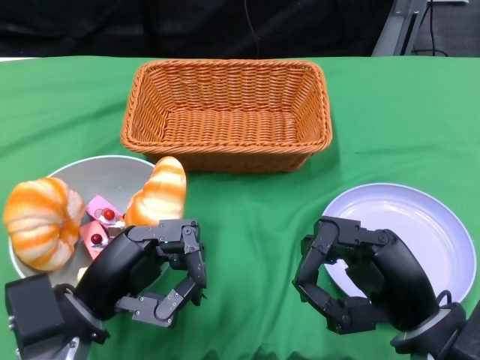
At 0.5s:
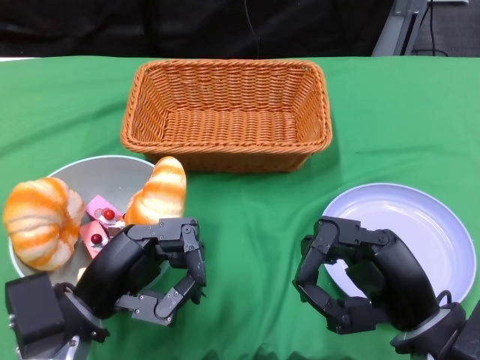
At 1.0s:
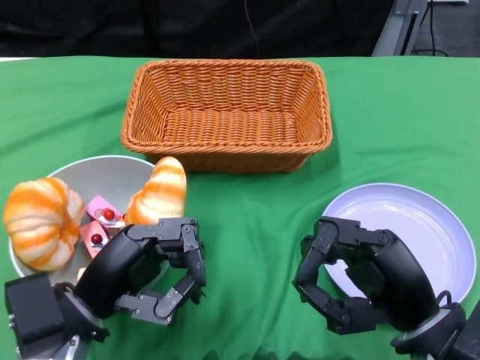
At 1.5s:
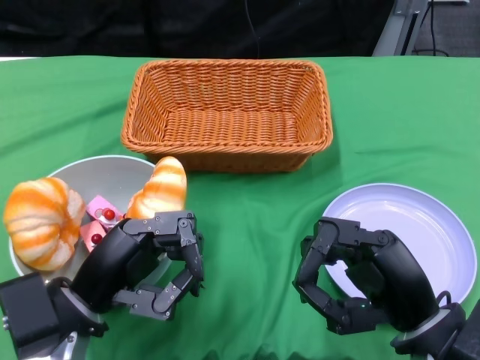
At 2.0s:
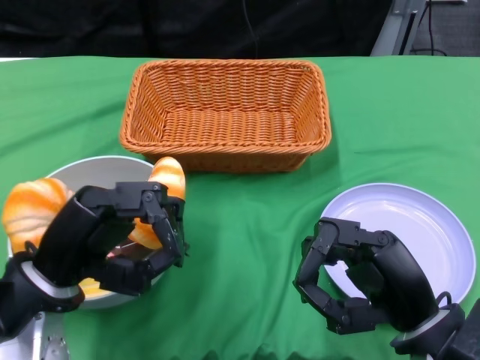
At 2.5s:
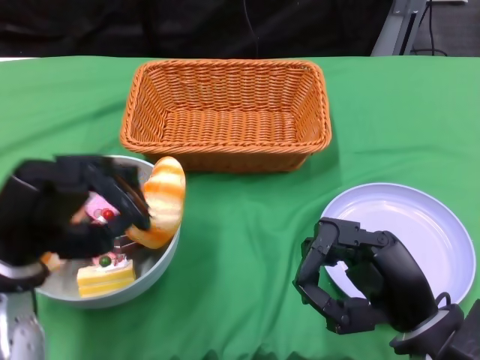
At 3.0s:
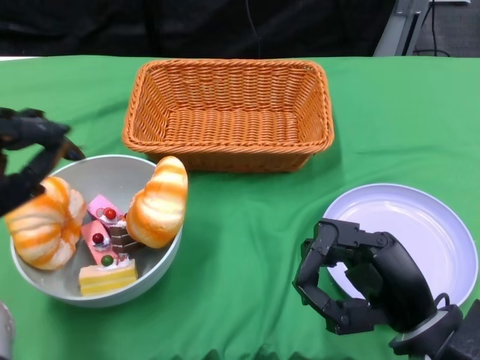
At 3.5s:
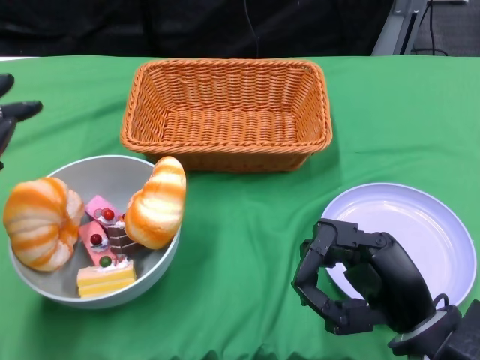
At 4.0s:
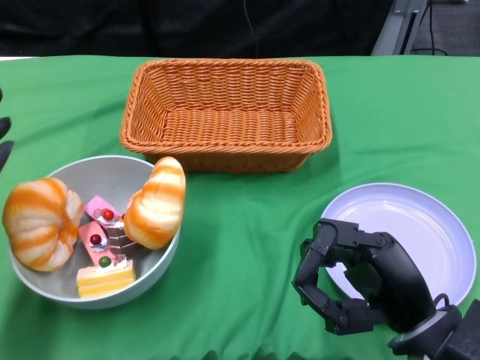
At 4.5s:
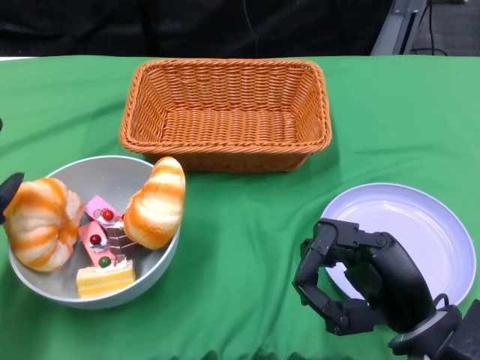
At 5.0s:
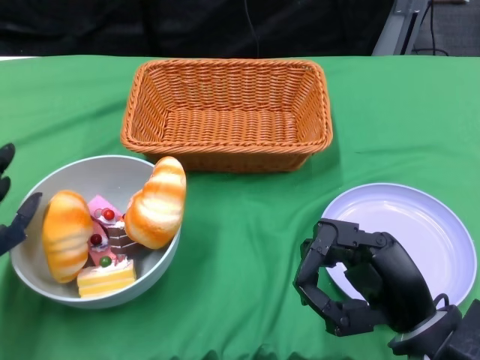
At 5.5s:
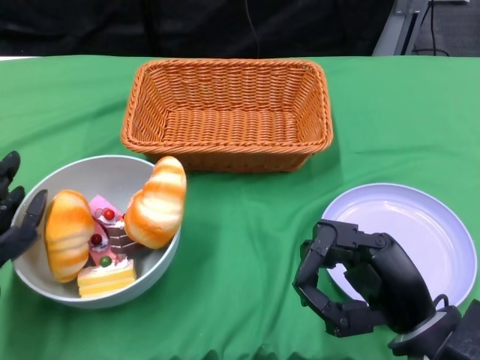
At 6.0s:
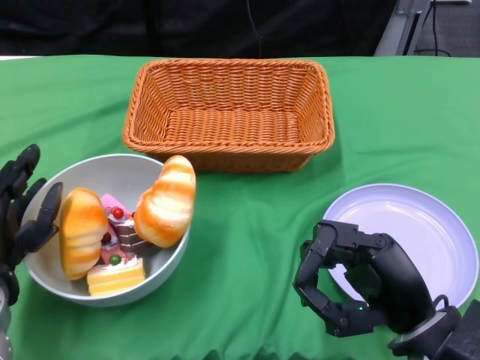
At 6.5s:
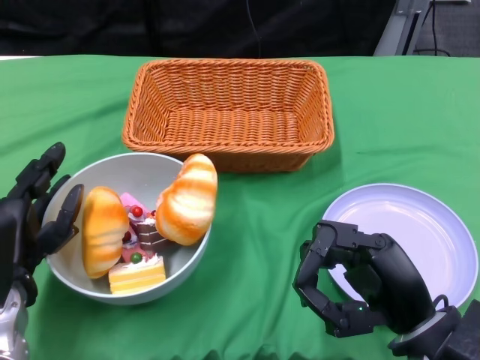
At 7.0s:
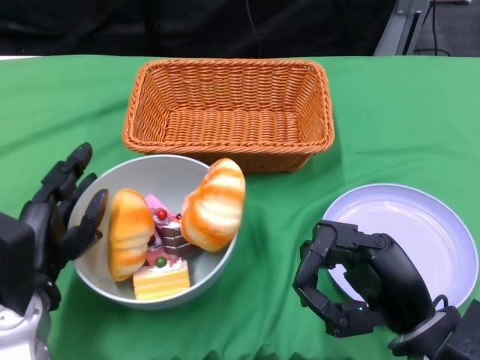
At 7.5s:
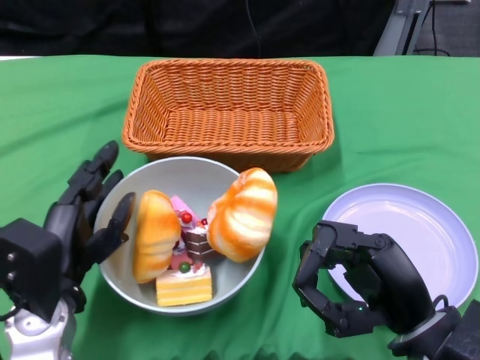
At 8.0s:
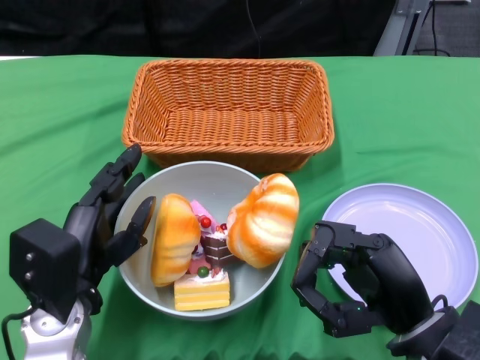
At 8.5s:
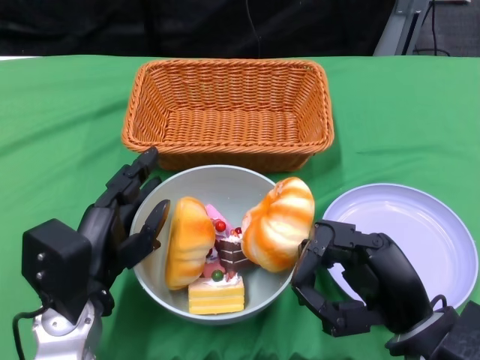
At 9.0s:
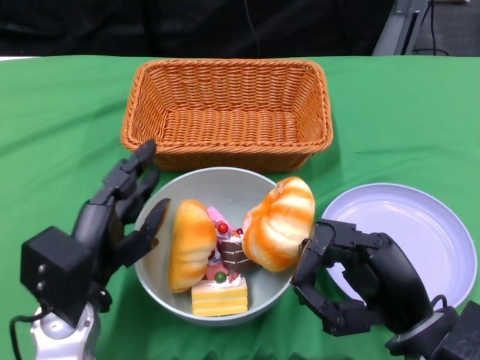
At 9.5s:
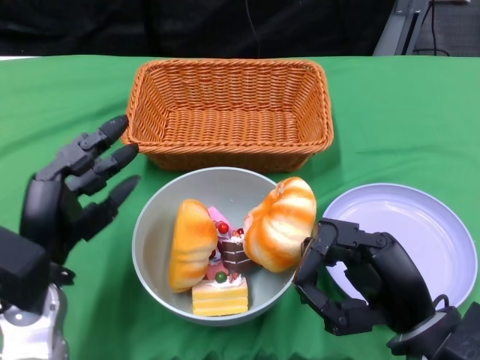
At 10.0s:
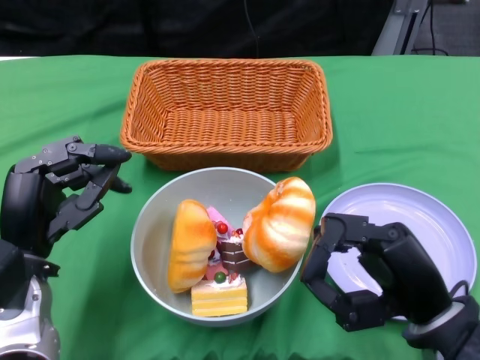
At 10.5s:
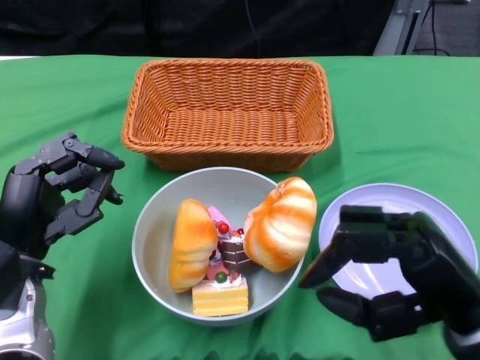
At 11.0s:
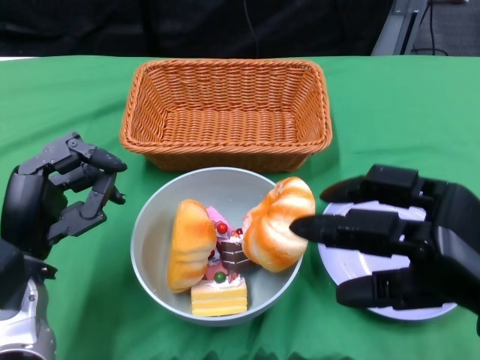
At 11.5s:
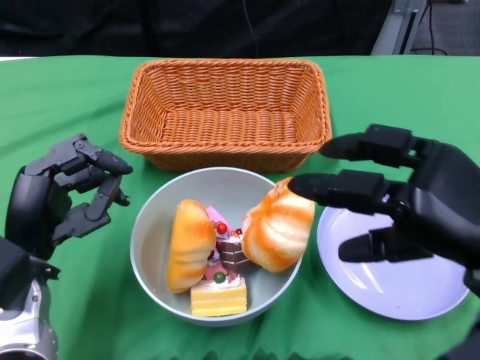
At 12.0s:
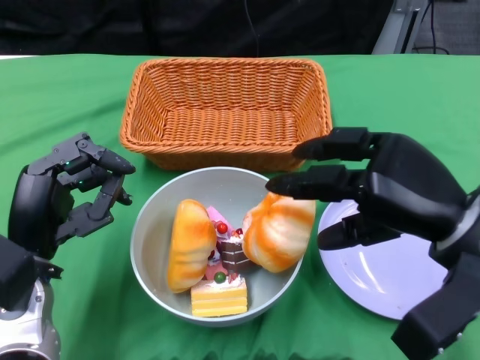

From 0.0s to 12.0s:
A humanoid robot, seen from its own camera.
Step, from 0.0s to 9.0s: Push the bowl to the center of the table using the left gripper.
From 2.0s to 4.0s: The left hand travels to the left by approximately 10 cm.
From 4.0s to 6.0s: The left hand changes place by approximately 5 cm.
From 6.0s to 8.0s: The left hand travels to the right by roughly 5 cm.
From 10.0s to 12.0s: The right hand shifts some 10 cm upward and forward.

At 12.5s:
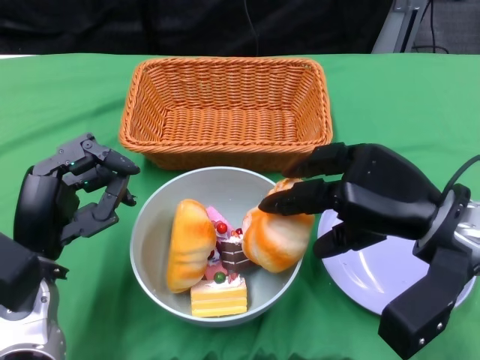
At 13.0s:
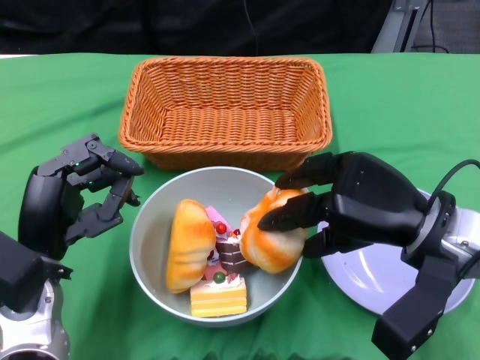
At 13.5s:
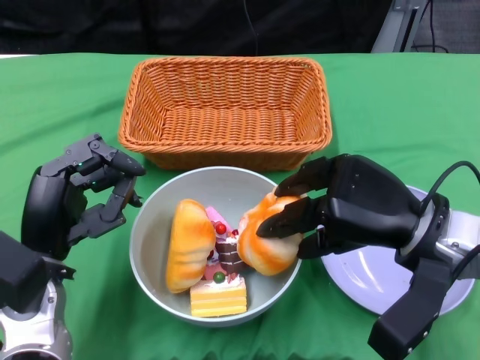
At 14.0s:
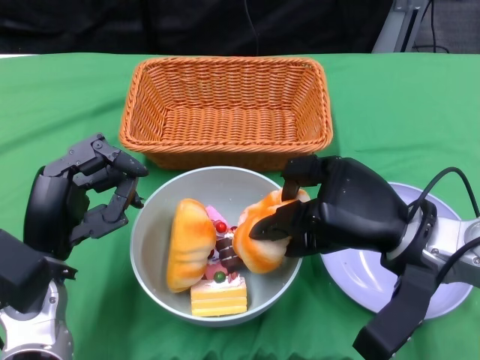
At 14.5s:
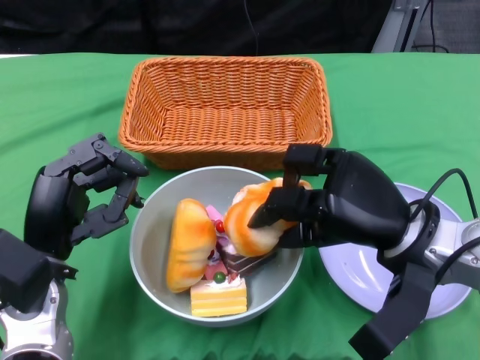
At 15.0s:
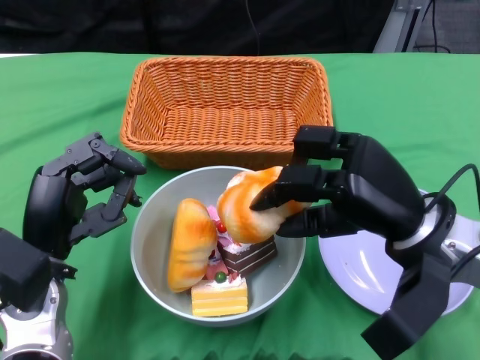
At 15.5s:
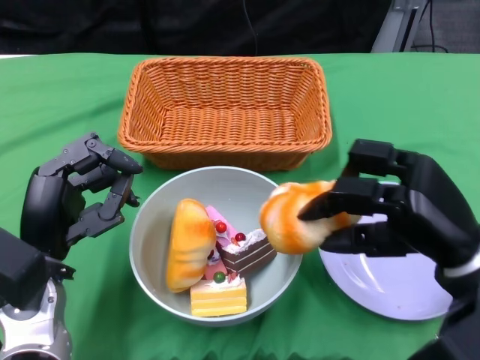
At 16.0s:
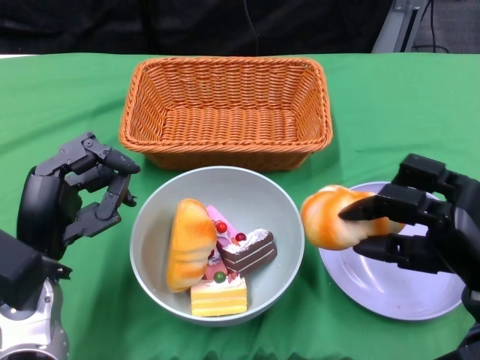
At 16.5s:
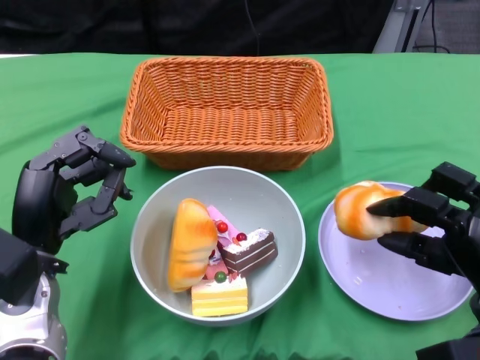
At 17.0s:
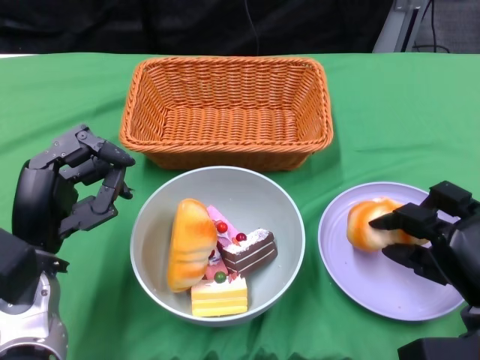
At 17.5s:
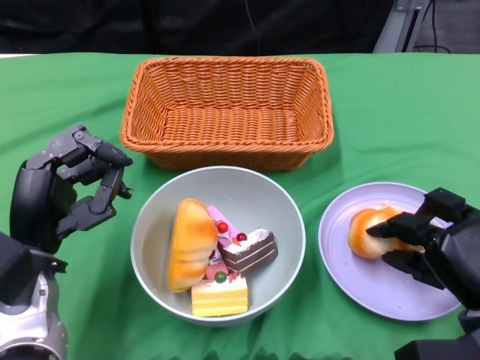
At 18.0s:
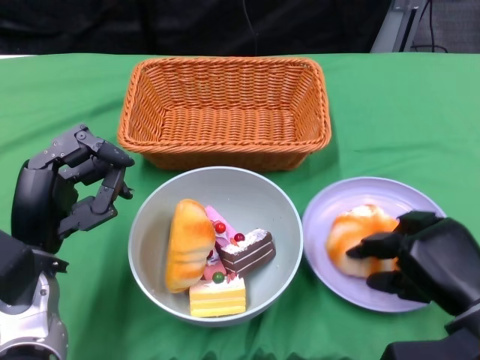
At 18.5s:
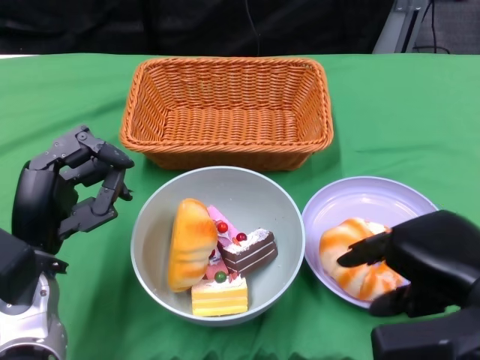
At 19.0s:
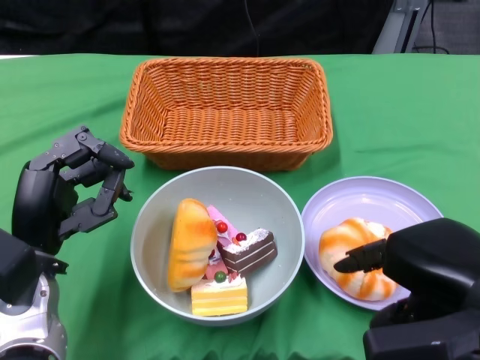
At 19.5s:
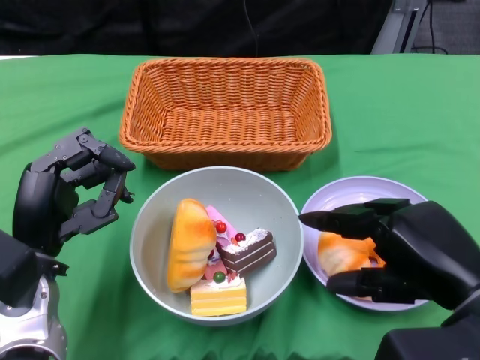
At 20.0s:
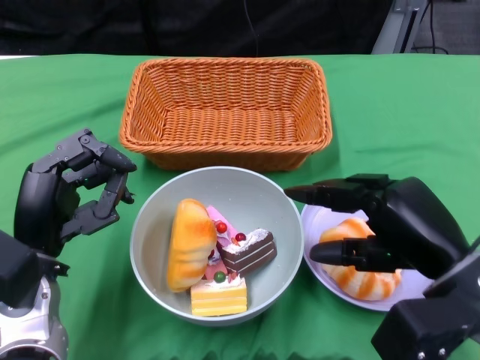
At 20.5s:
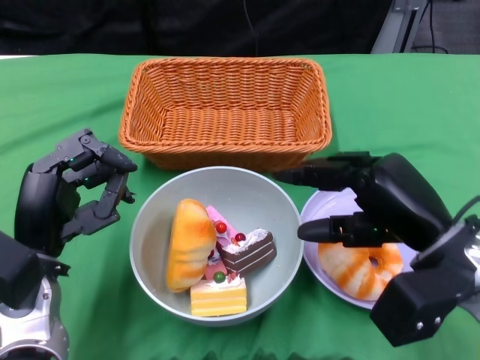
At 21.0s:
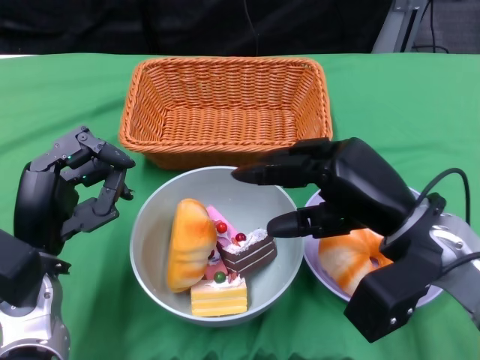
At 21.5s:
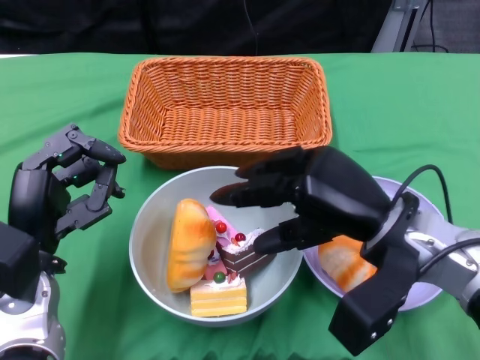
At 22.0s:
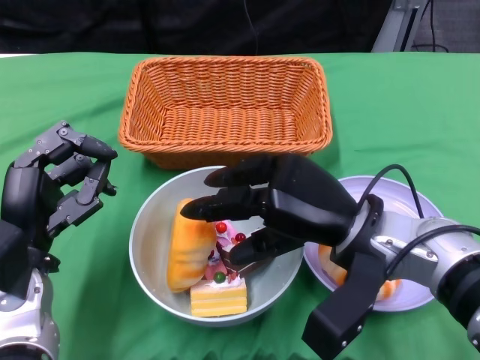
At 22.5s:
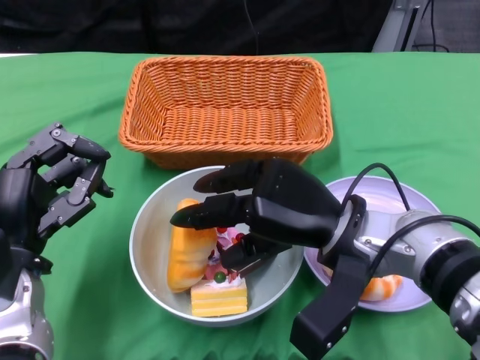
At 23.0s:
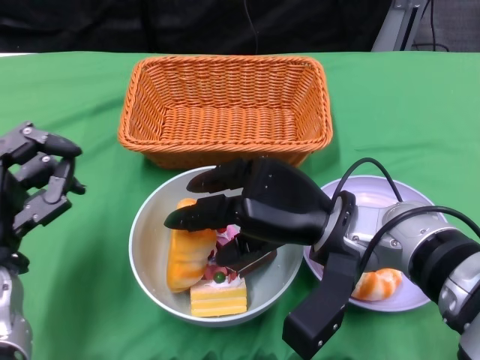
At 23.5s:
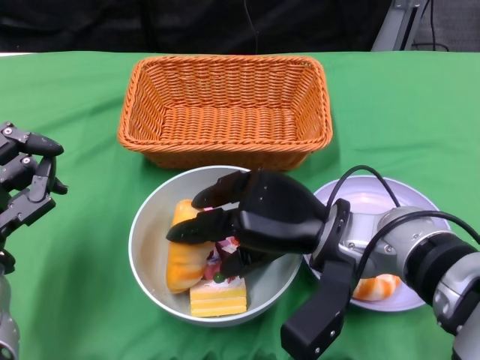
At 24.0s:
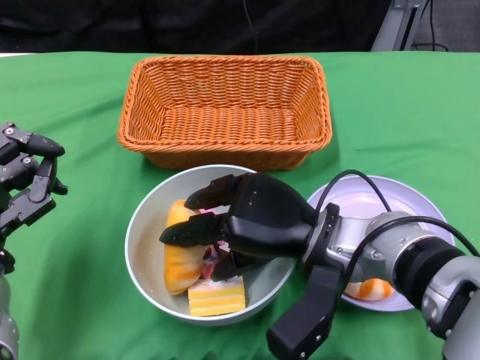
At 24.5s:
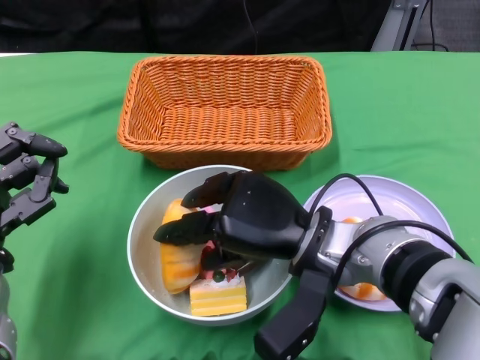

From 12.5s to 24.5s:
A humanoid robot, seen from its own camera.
Step, from 12.5s to 19.0s: Pick up the bread with the right gripper and place it on the plate.
From 14.5s to 16.5s: The right hand shifts some 10 cm to the right.
From 16.5s to 18.5s: The right hand is displaced upward by about 10 cm.
From 18.5s to 20.5s: The right hand heads forward, covering roughly 5 cm.
From 20.5s to 22.5s: The right hand heads to the left, covering about 10 cm.

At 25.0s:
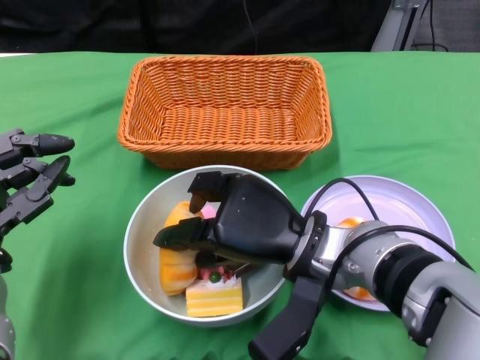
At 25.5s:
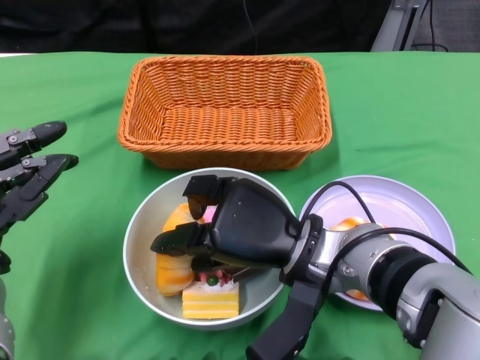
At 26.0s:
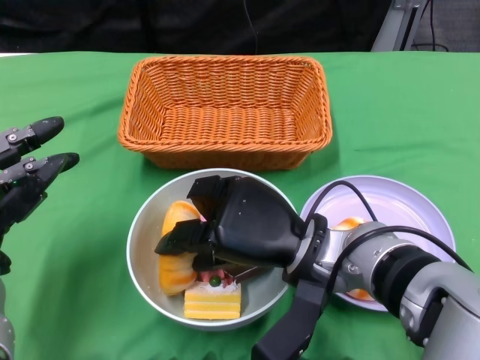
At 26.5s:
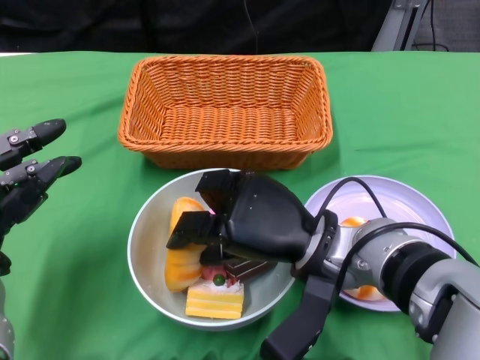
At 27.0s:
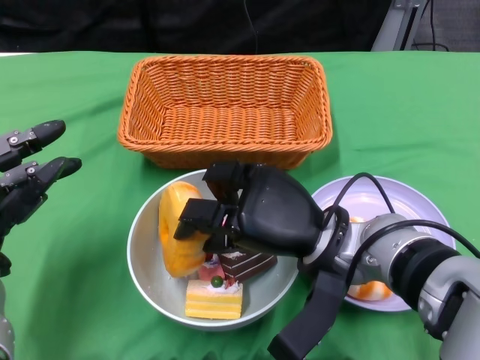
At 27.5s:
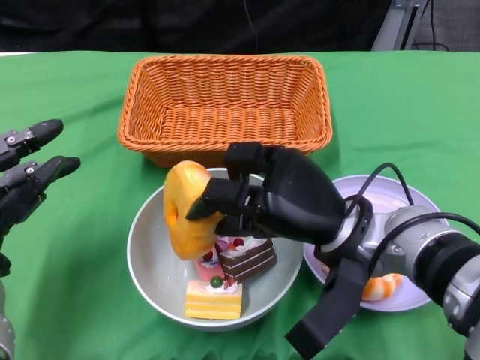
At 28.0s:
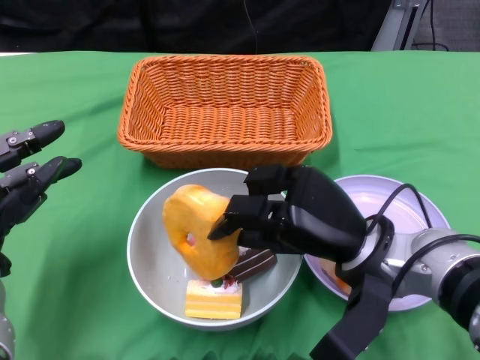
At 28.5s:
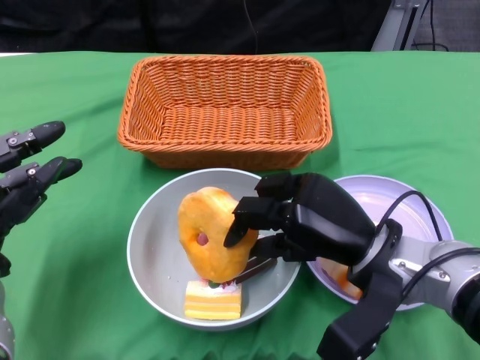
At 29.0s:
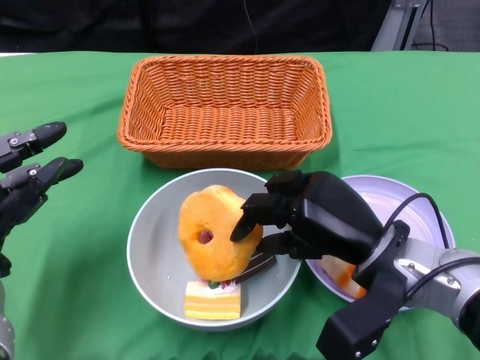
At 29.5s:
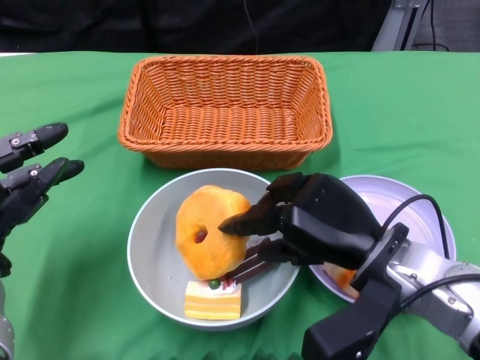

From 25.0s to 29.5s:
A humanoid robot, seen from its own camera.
From 27.0s to 29.5s: The right hand shifts roughly 5 cm to the right.
